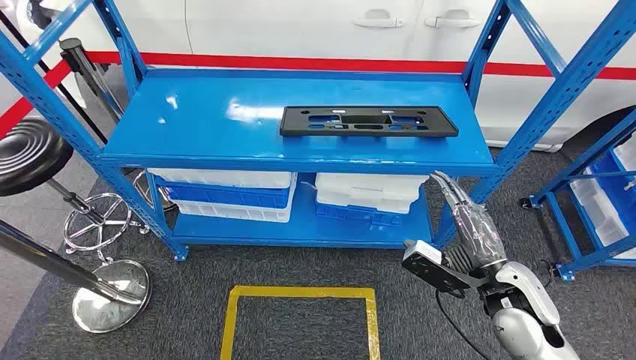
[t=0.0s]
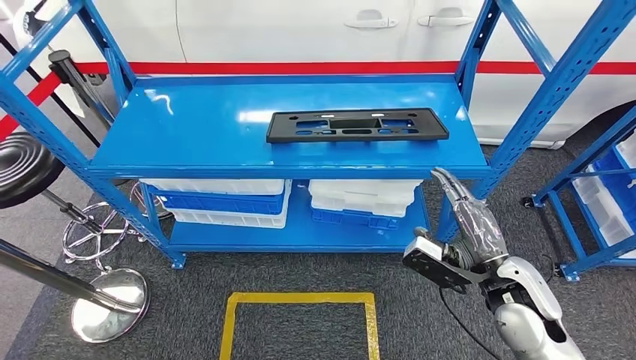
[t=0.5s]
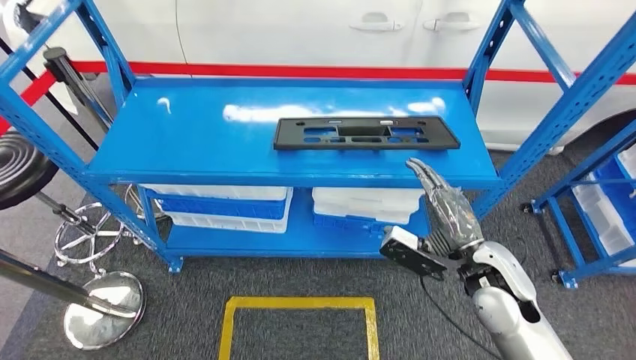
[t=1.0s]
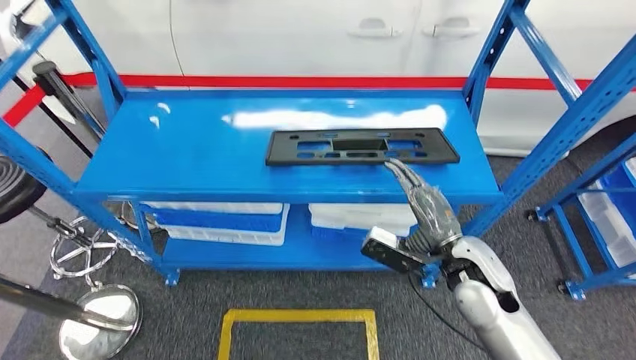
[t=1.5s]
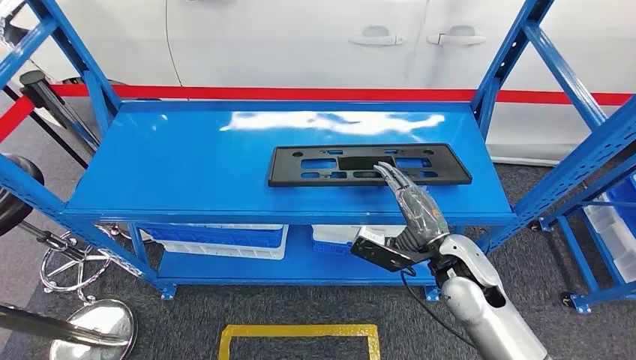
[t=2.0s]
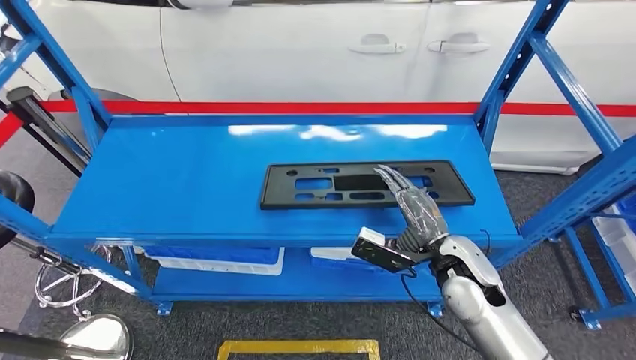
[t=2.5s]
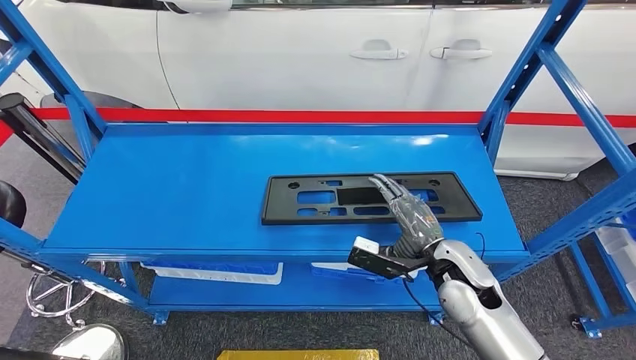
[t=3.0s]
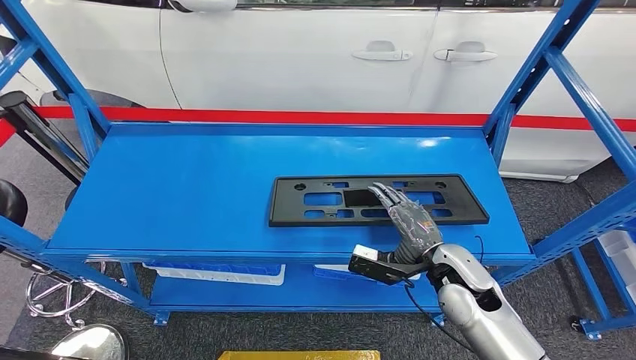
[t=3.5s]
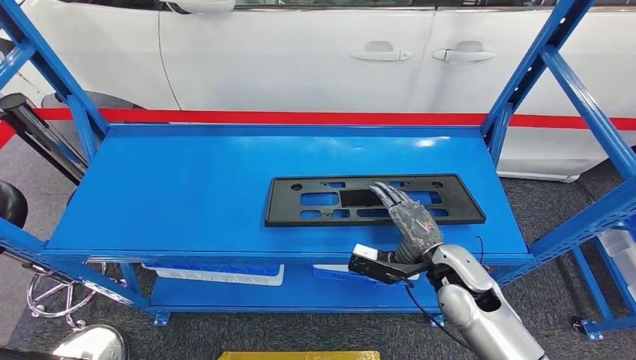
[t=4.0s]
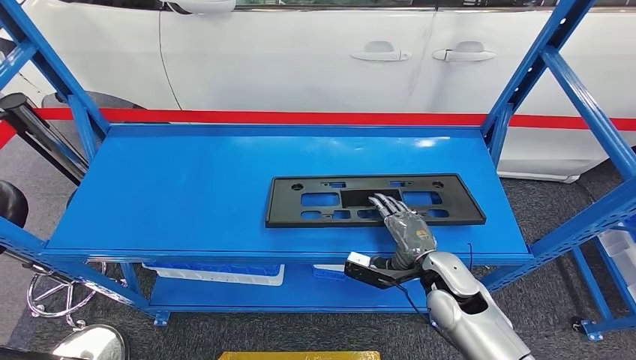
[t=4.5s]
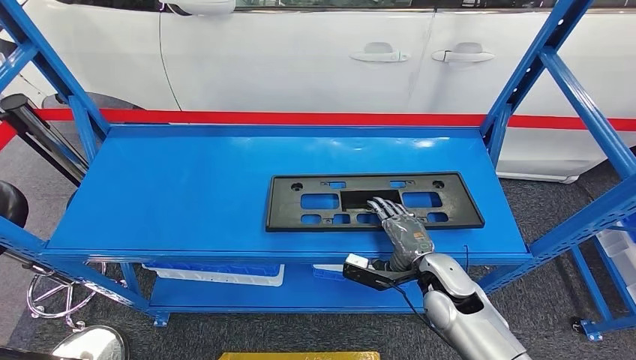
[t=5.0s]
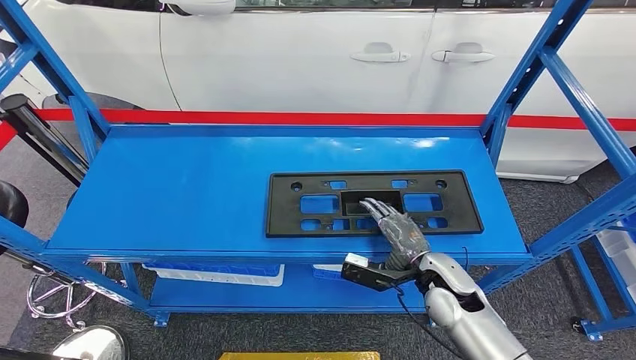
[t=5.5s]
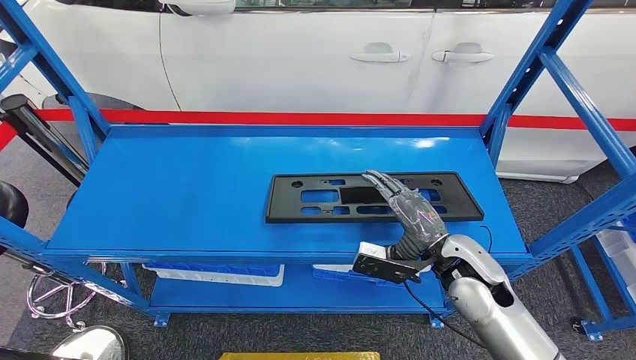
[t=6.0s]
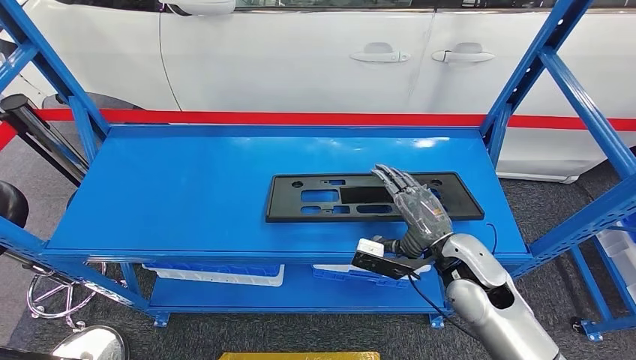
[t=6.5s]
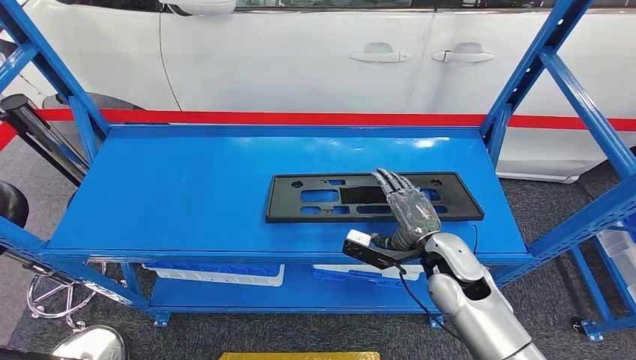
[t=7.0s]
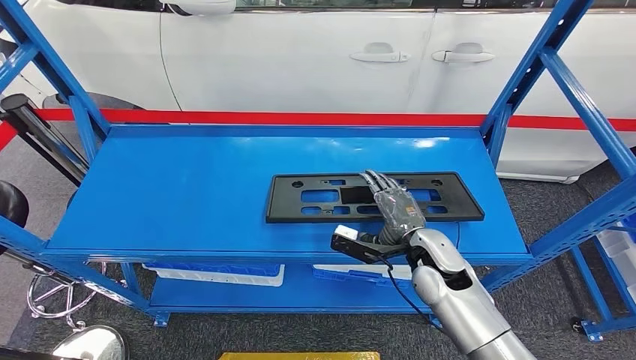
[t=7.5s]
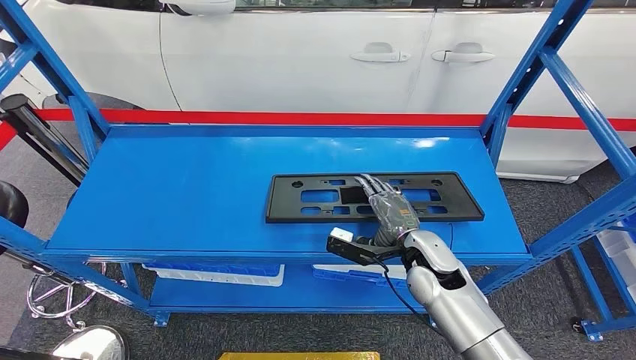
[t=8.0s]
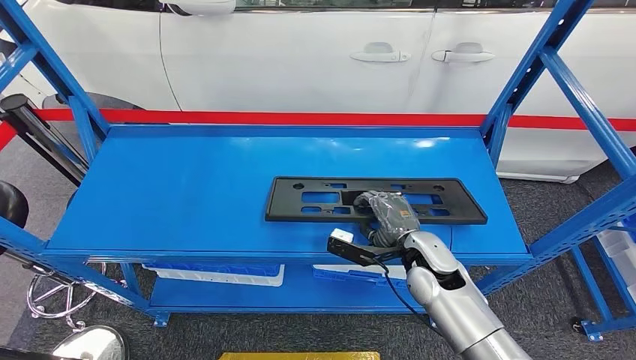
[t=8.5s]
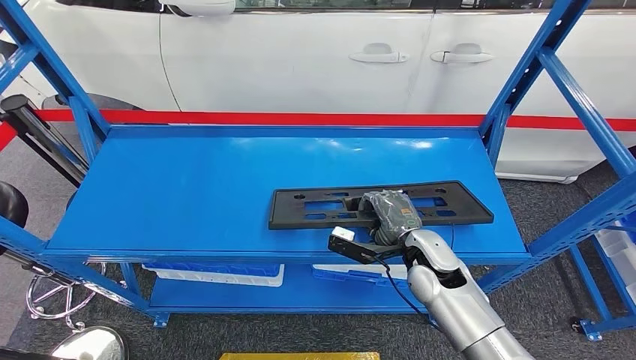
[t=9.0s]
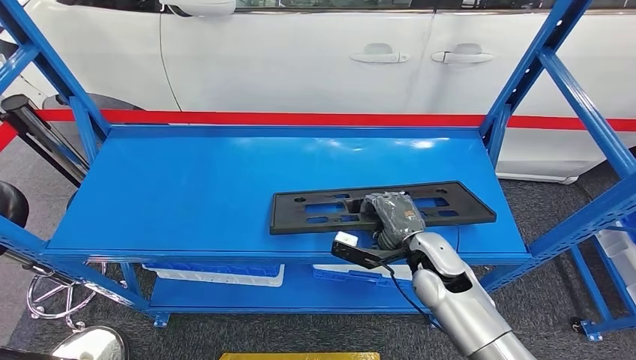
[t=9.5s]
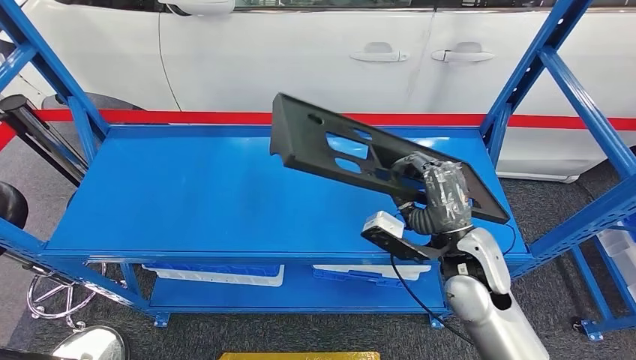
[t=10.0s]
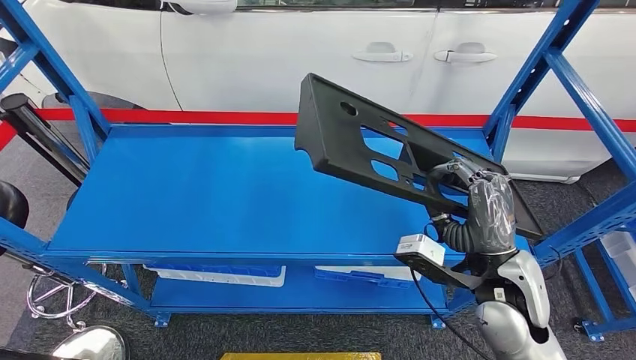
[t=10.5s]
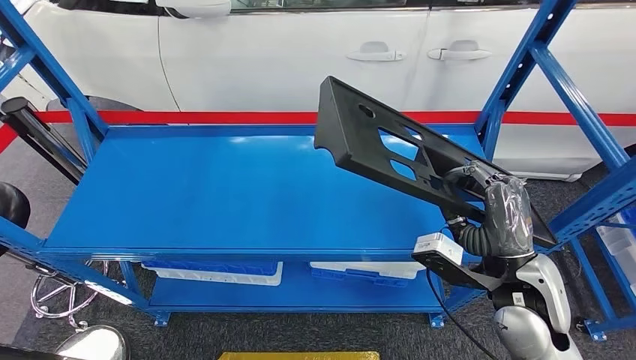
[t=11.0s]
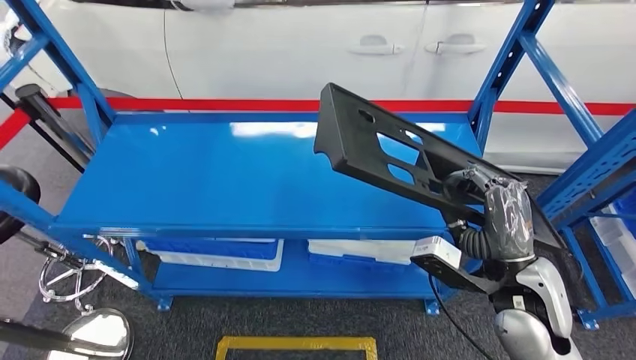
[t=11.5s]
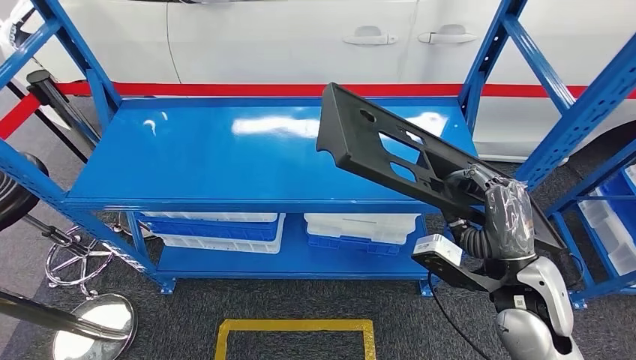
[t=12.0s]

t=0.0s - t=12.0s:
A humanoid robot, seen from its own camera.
t=4.0s - t=6.0s: The hands stay close to where they were, moving slightly.
t=6.0s - t=8.0s: The right hand moves about 5 cm.
t=8.0s - t=10.0s: The right hand shifts roughly 5 cm upward.

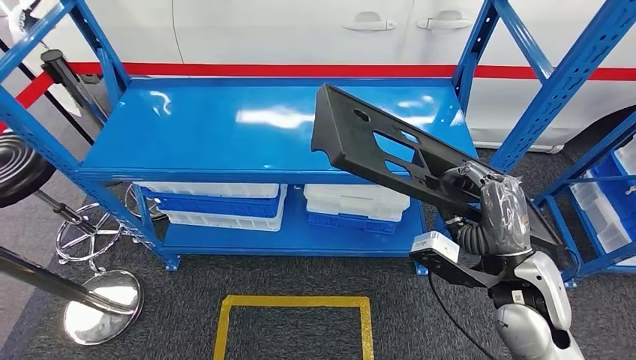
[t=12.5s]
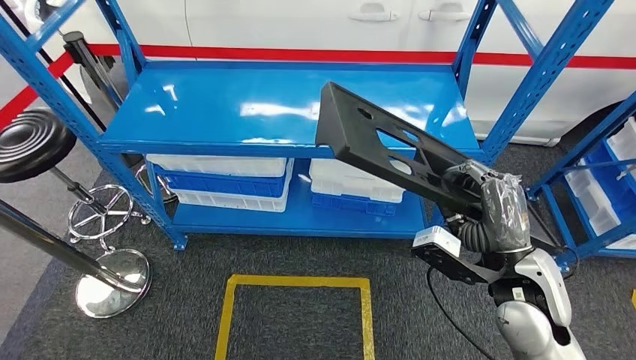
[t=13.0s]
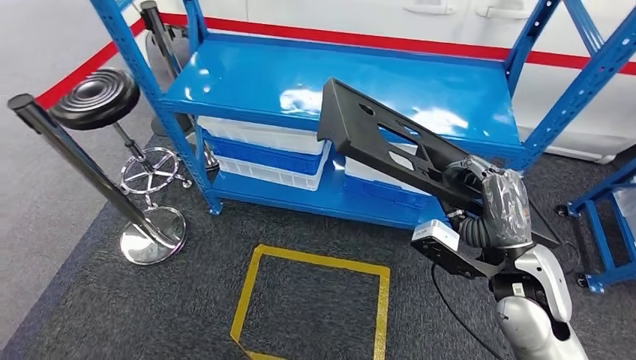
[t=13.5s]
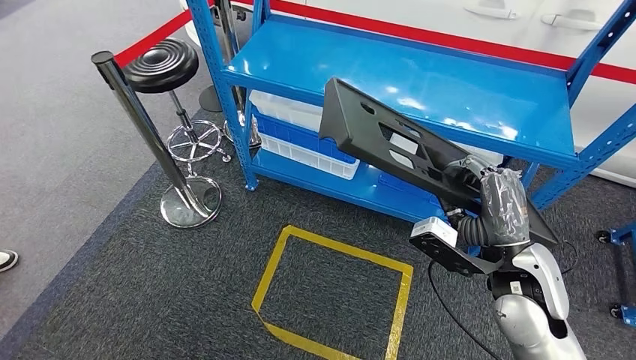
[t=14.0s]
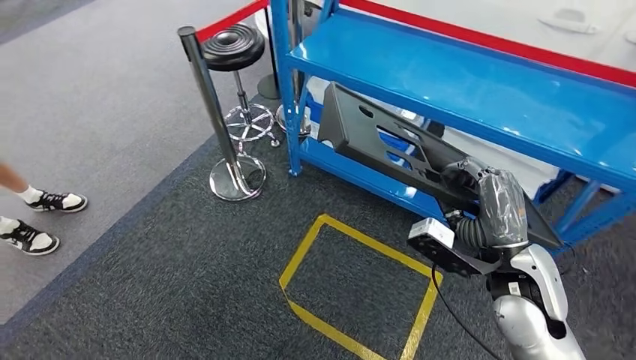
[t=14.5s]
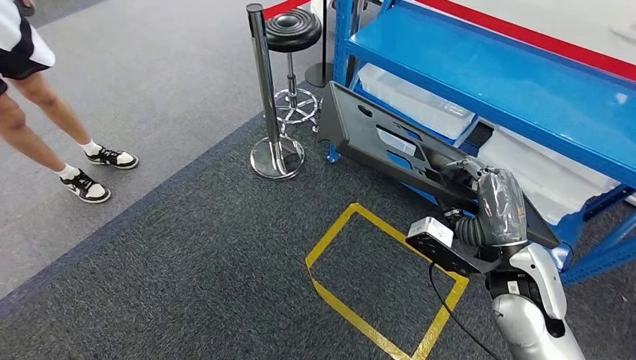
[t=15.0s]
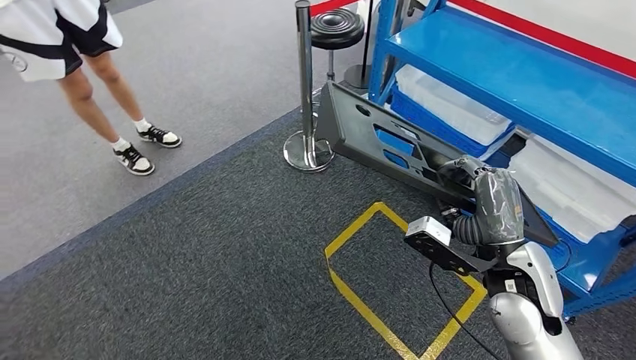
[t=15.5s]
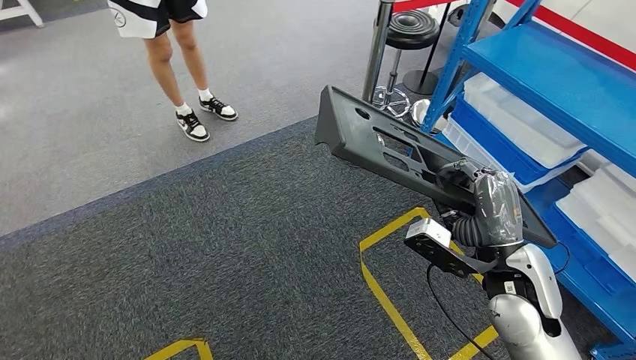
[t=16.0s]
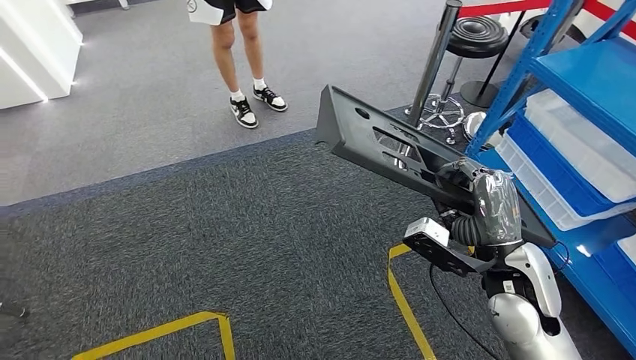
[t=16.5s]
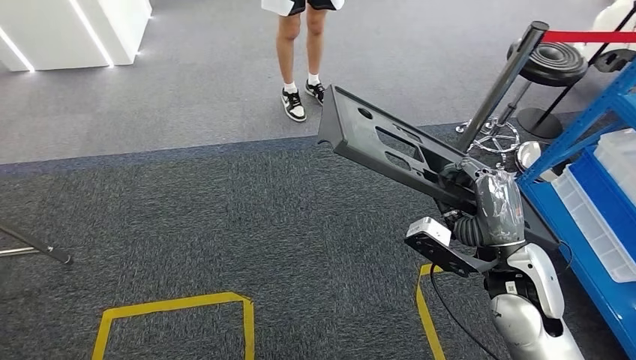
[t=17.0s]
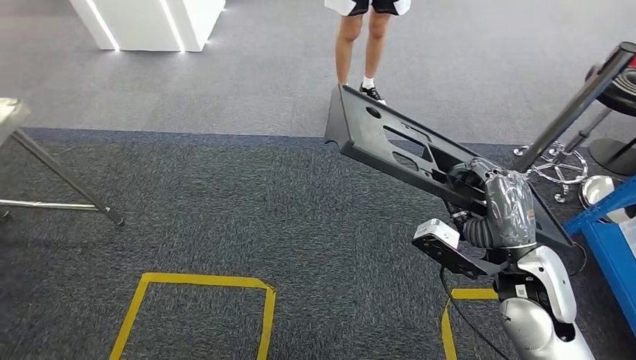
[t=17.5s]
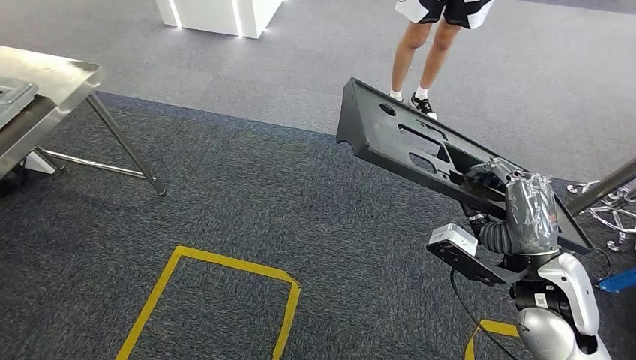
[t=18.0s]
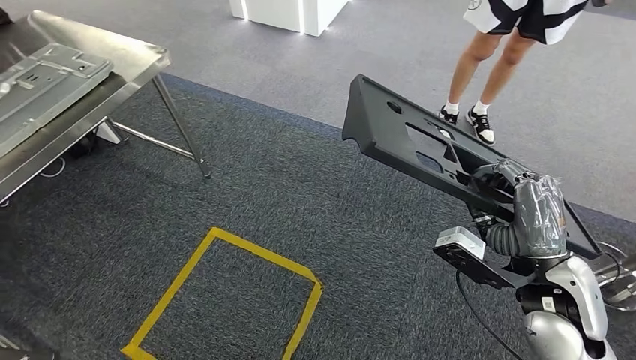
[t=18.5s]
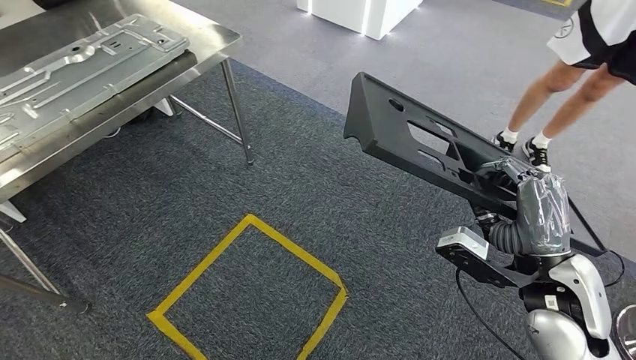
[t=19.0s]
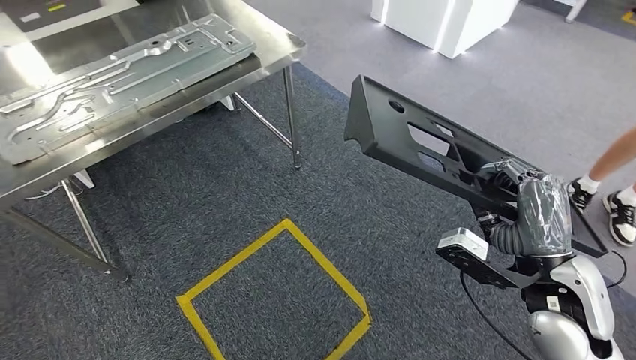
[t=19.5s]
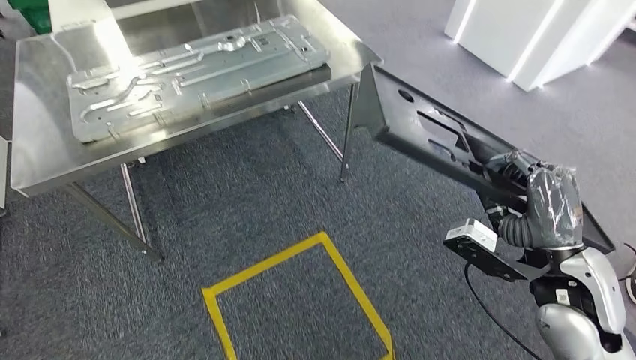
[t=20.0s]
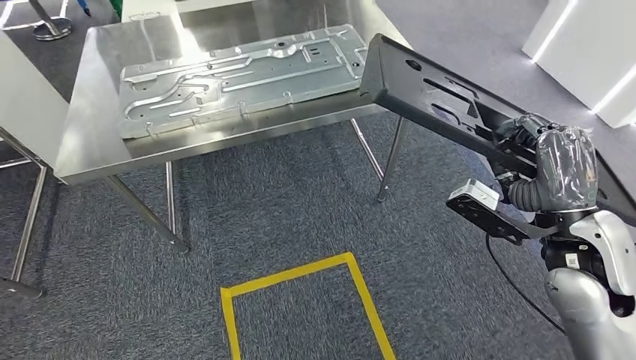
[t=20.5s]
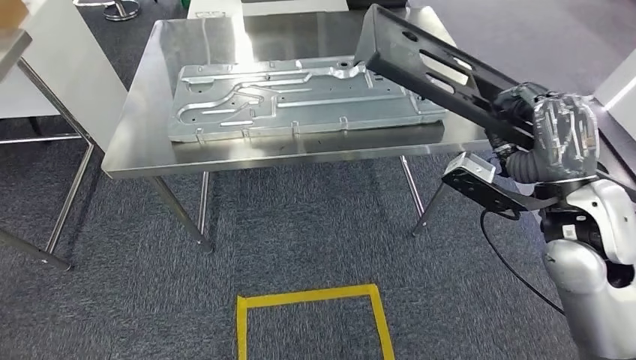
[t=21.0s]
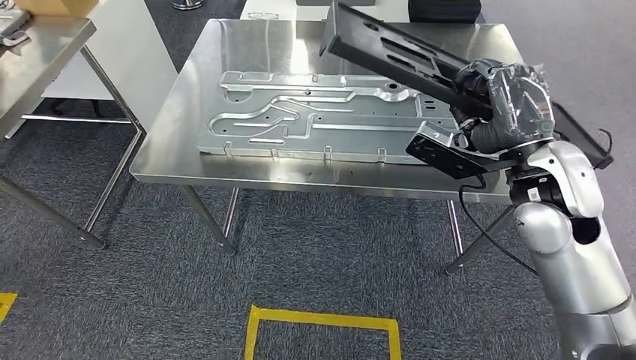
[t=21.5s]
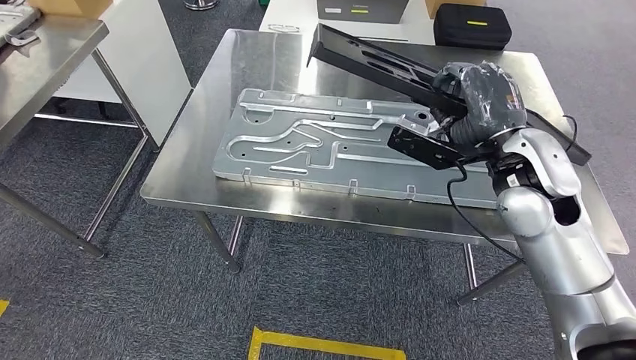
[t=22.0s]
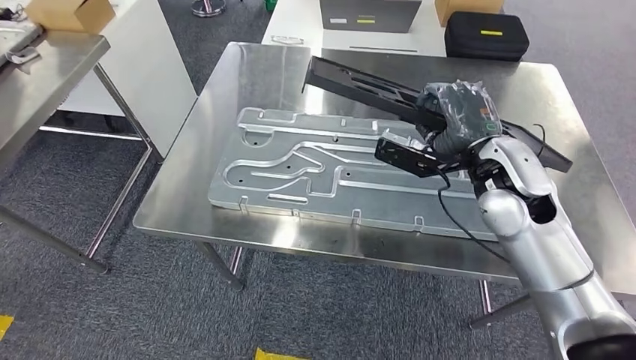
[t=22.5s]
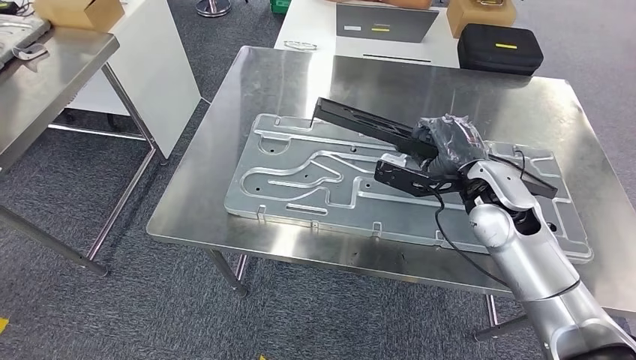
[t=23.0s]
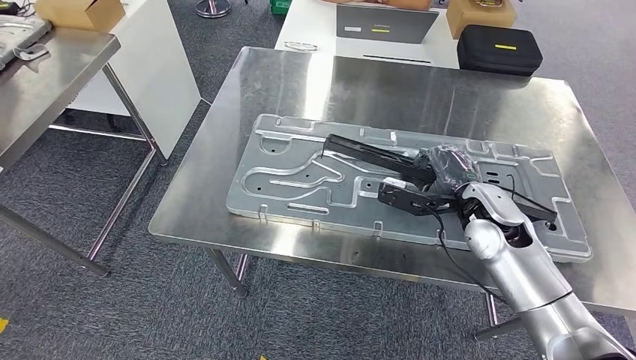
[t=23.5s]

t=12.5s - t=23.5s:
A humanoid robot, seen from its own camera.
Step, t=13.5s - t=21.0s: Move the large material to the workbench.
